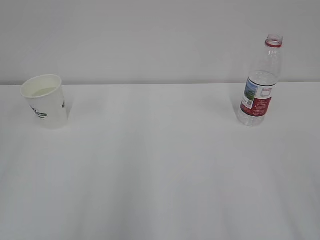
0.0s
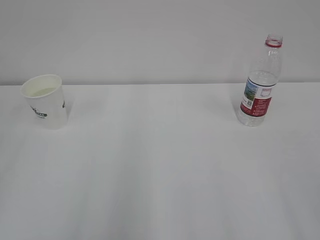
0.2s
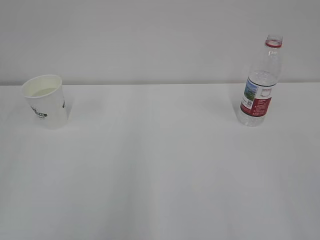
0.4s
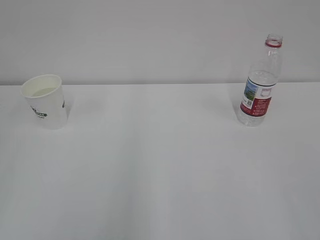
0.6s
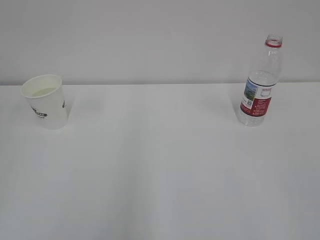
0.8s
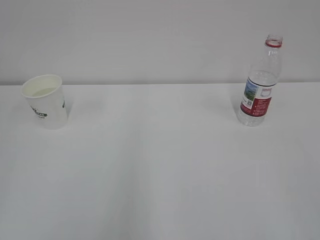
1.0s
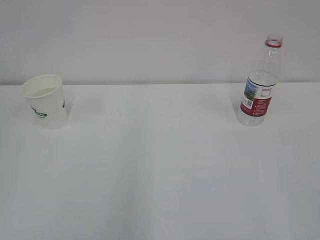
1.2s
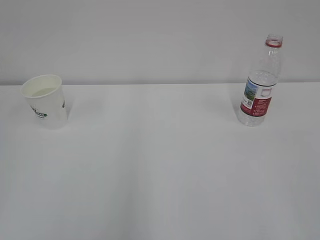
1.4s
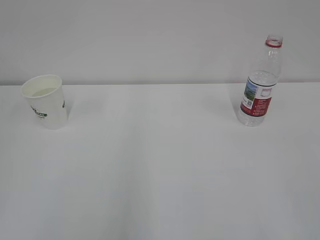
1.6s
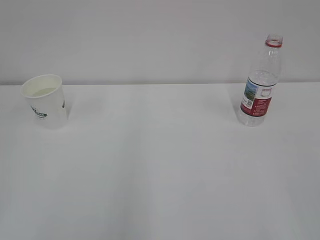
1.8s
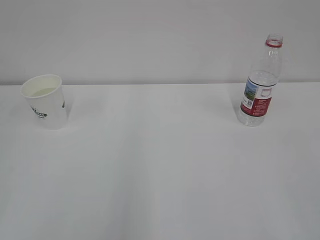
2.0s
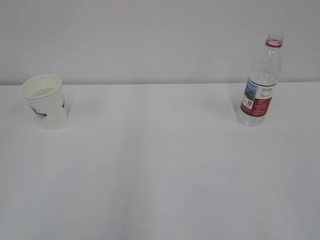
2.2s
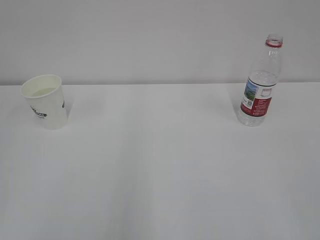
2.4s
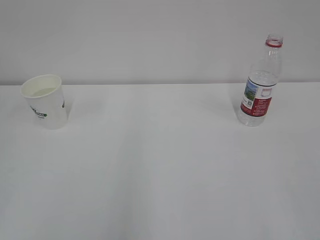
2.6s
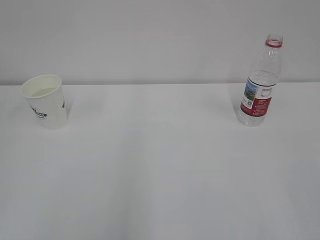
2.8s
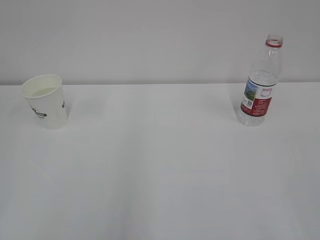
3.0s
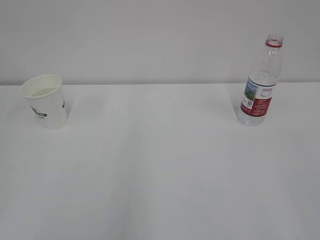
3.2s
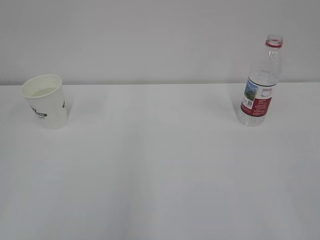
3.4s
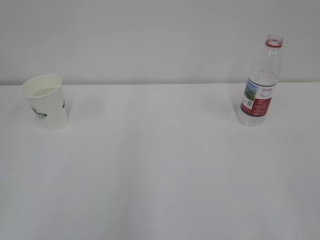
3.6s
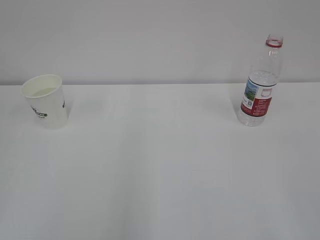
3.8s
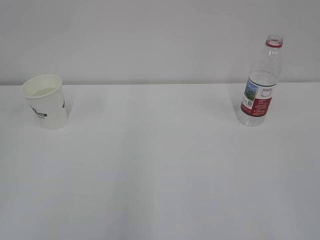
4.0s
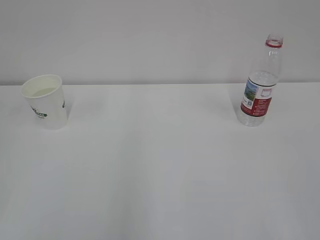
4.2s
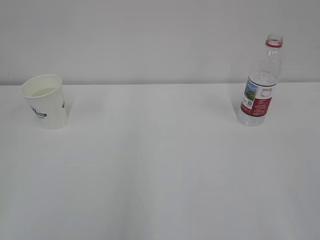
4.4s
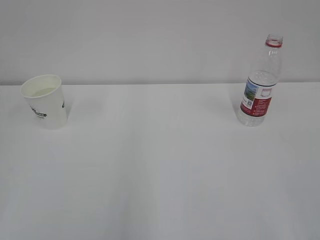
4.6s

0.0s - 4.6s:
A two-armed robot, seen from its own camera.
1.6s - 4.6s: Both grippers stay put.

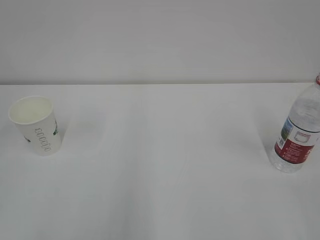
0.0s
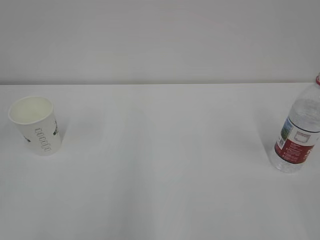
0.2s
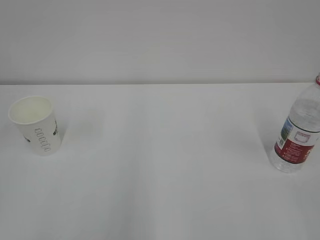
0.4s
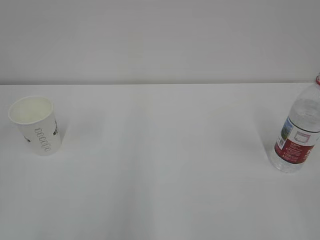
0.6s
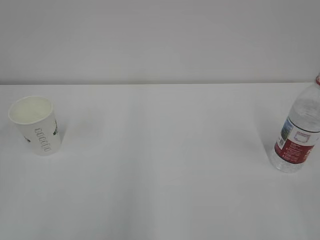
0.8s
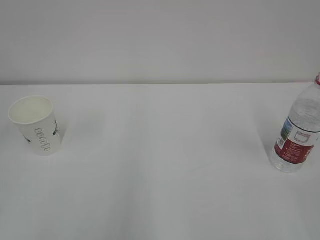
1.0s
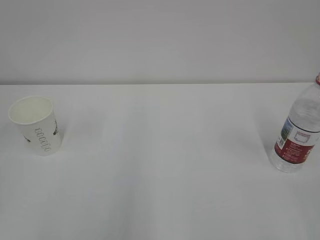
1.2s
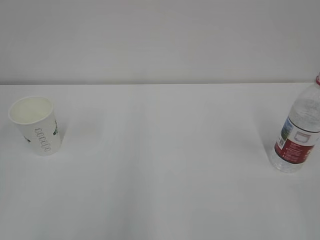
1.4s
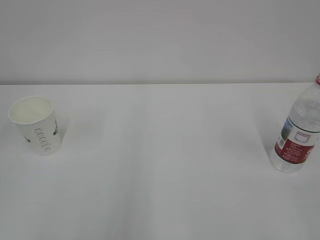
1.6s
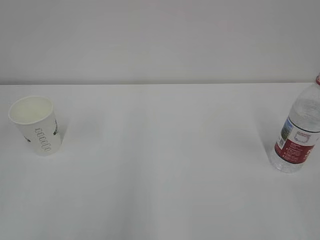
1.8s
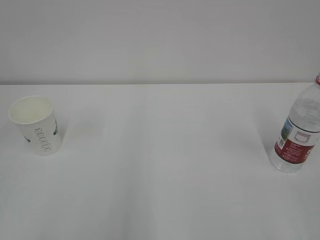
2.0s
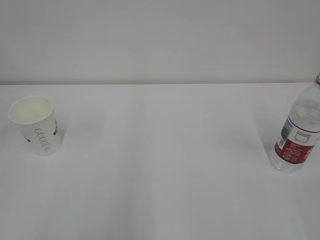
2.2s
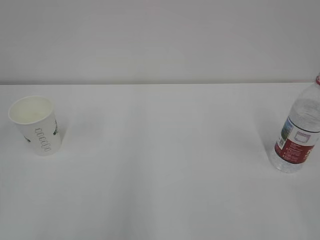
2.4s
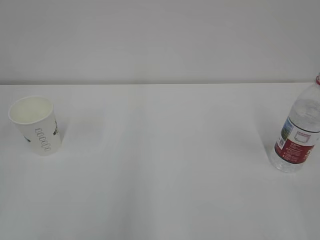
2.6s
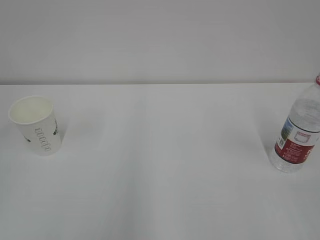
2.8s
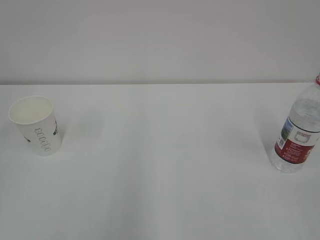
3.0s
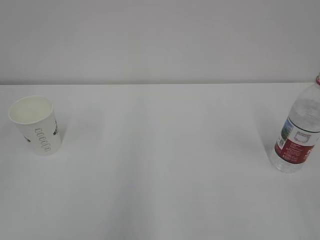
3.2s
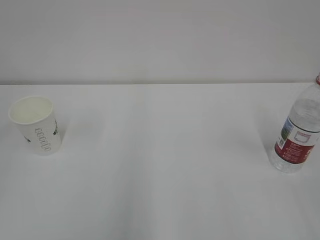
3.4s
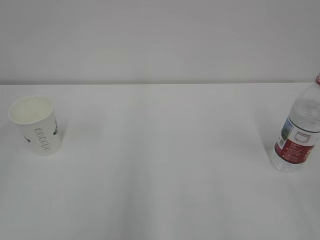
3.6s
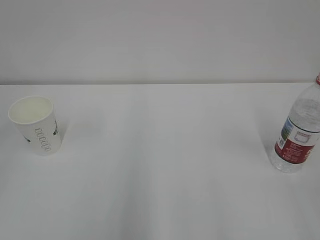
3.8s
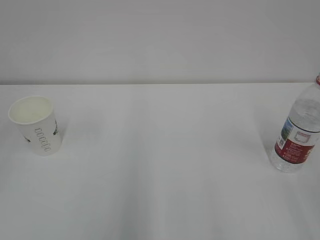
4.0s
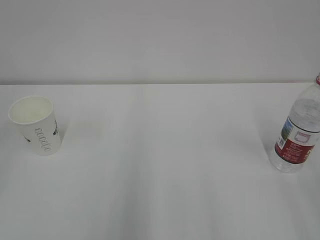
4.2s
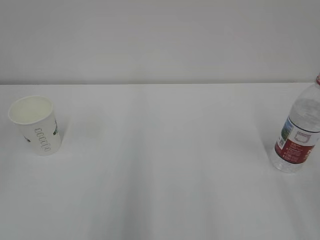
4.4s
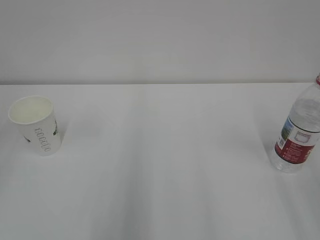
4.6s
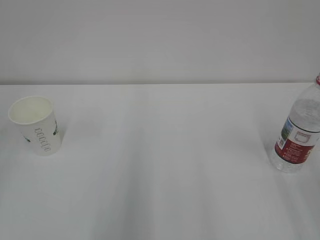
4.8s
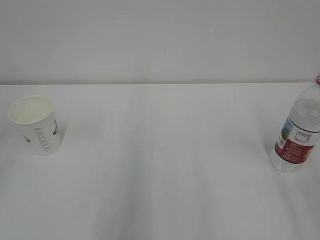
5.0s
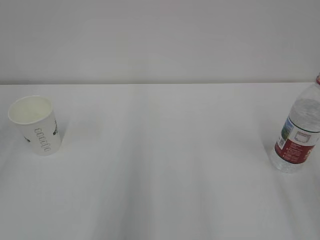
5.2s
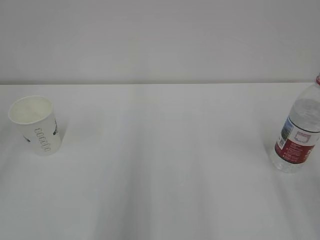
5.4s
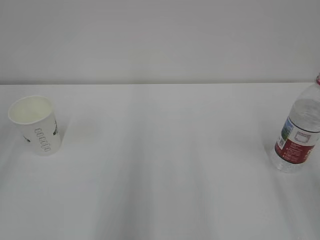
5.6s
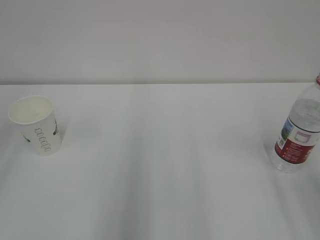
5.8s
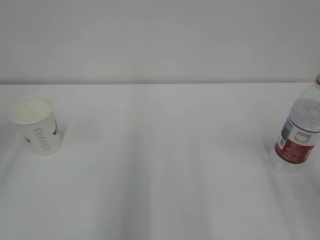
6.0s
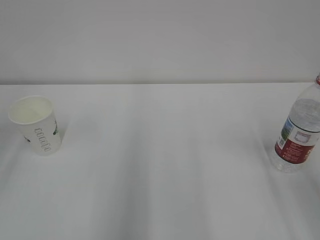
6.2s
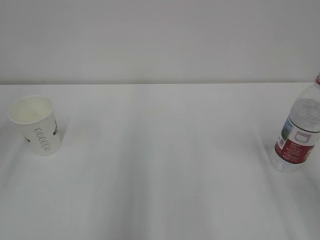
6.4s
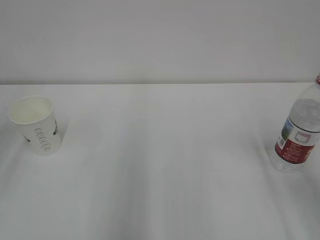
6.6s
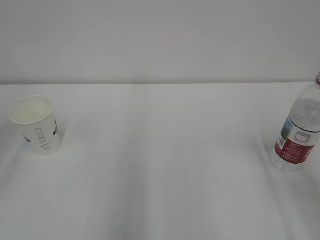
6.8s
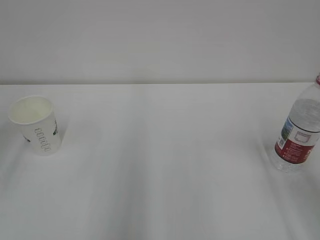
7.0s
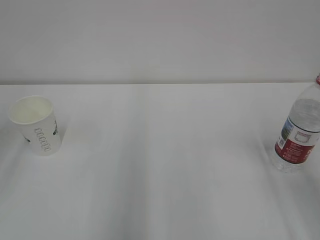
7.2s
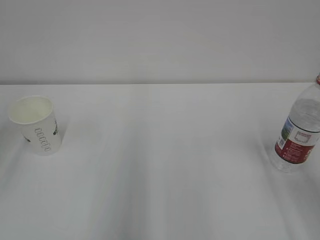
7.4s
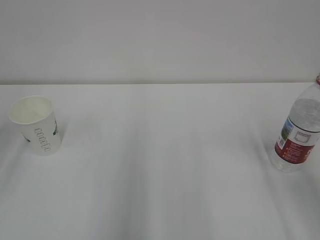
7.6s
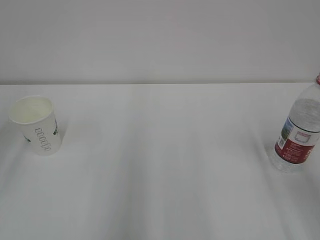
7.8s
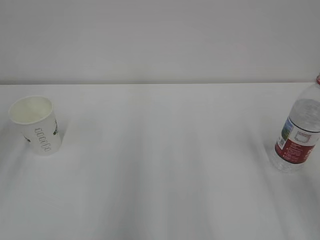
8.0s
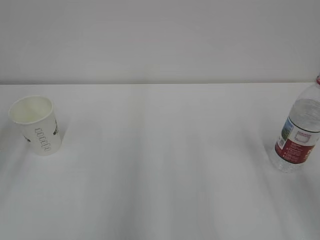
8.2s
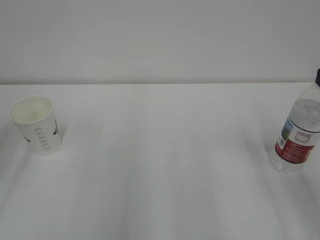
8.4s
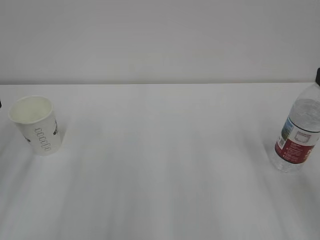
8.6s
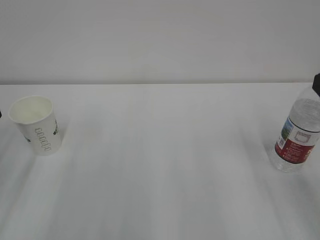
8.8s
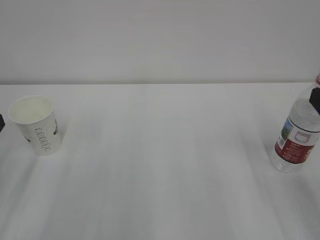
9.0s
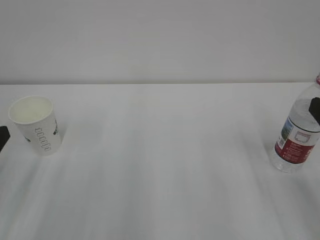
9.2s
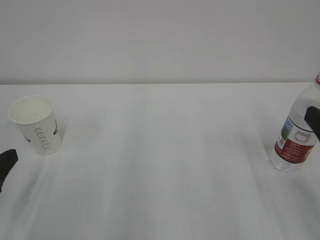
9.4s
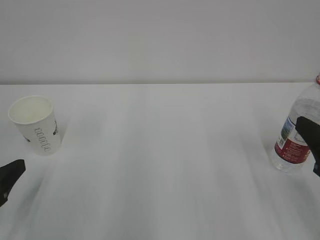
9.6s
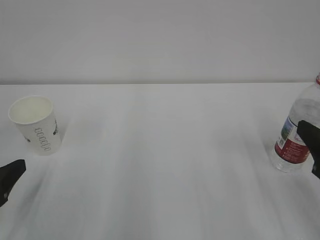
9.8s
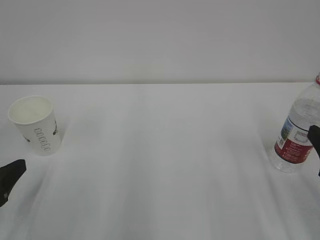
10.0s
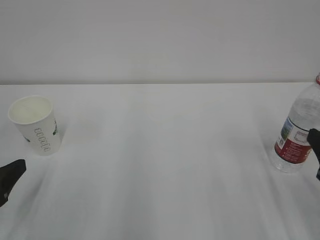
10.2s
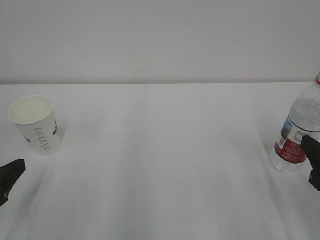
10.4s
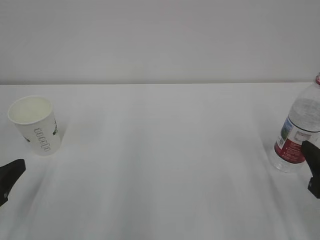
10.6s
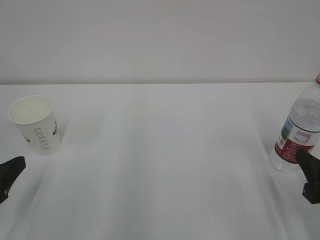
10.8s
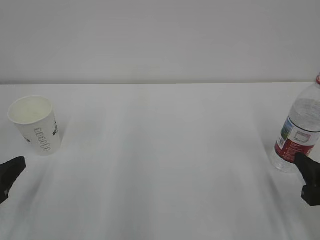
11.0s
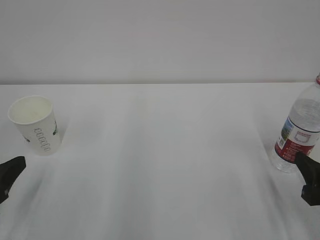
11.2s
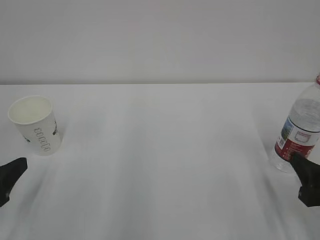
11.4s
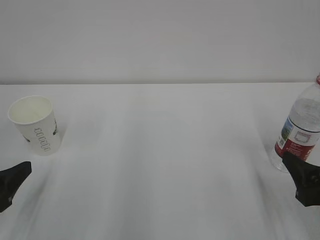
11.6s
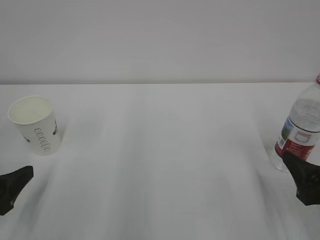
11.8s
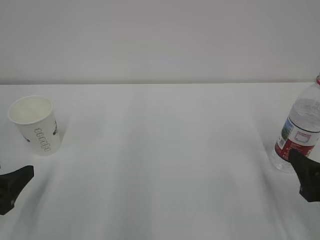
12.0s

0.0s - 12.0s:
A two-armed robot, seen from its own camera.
9.0s - 10.4s: The two grippers go about 5 cm downward.
10.4s - 12.0s: The right gripper opens.

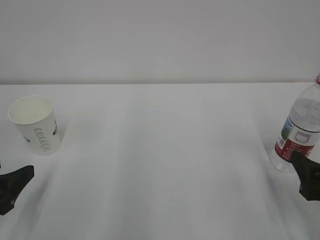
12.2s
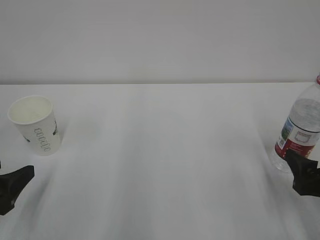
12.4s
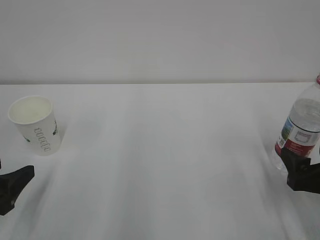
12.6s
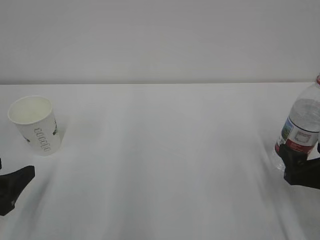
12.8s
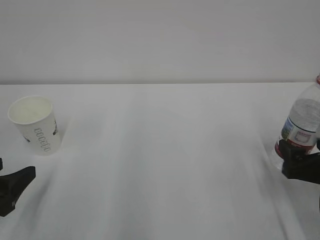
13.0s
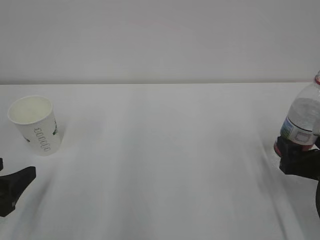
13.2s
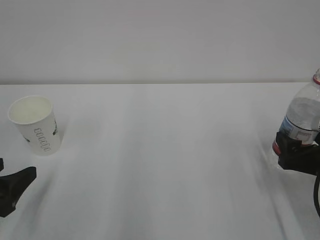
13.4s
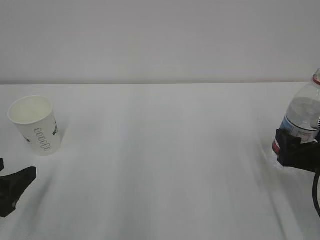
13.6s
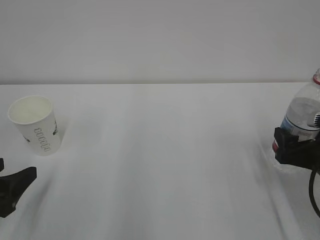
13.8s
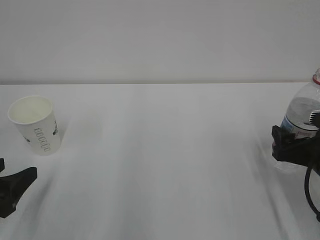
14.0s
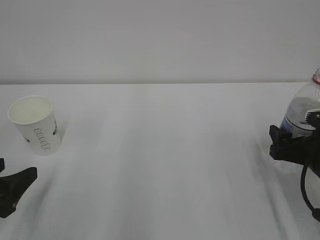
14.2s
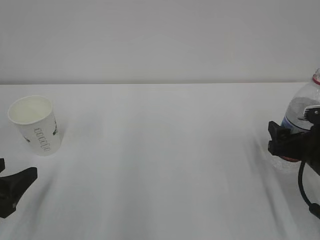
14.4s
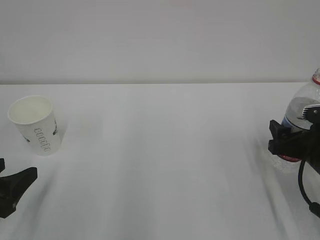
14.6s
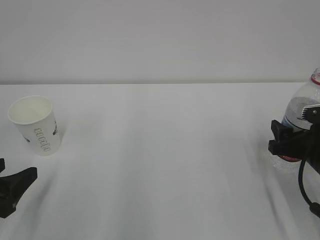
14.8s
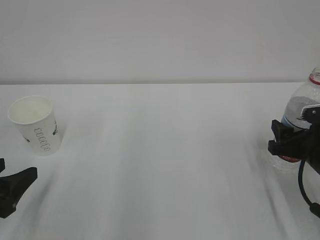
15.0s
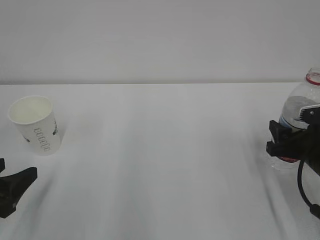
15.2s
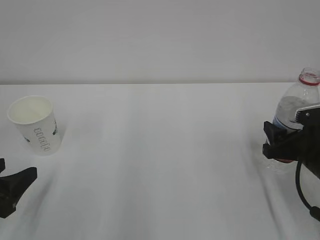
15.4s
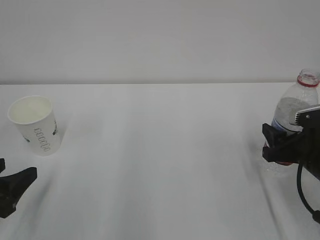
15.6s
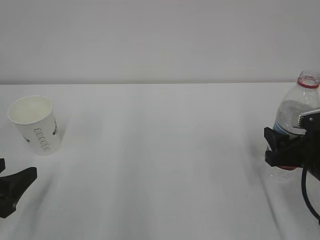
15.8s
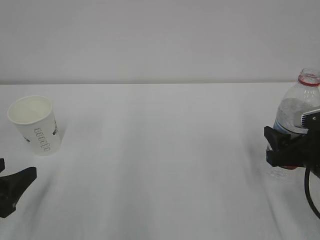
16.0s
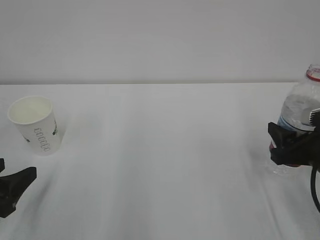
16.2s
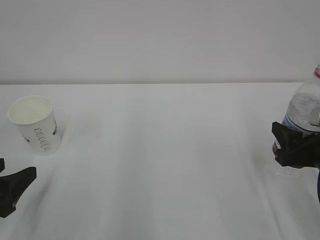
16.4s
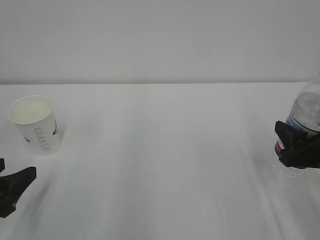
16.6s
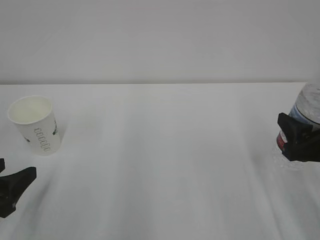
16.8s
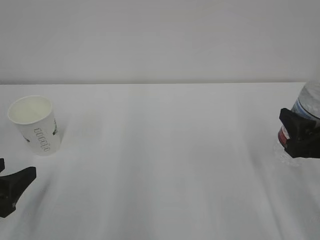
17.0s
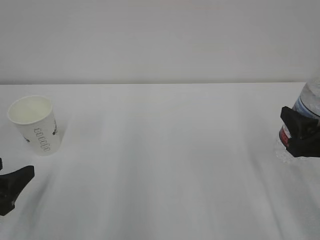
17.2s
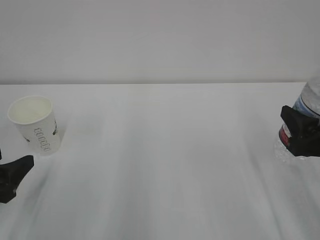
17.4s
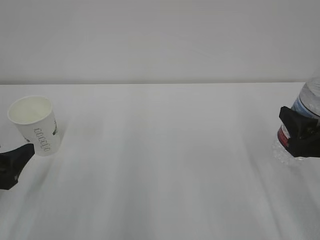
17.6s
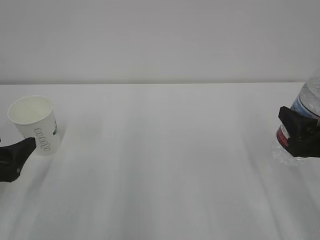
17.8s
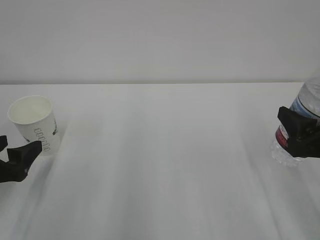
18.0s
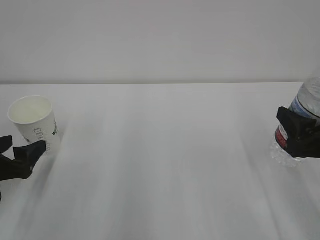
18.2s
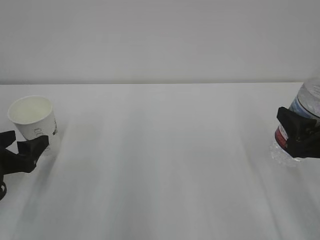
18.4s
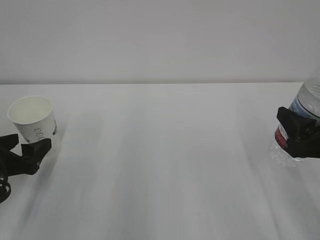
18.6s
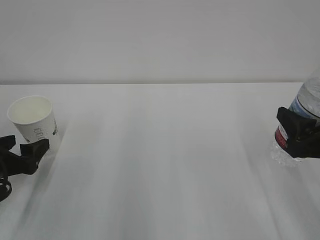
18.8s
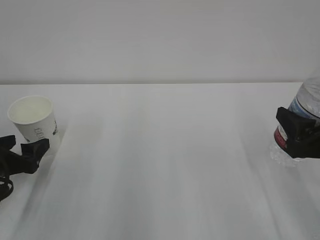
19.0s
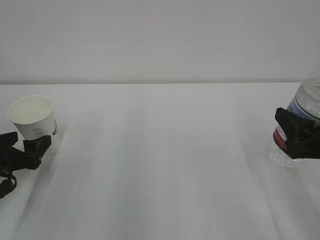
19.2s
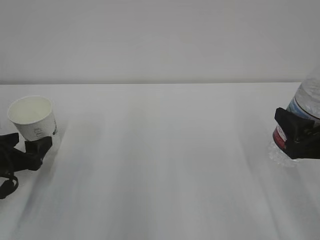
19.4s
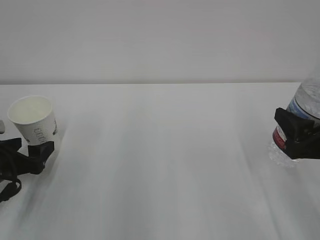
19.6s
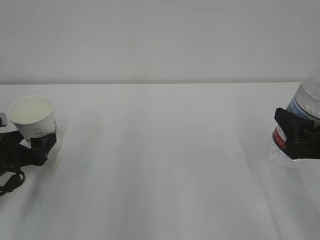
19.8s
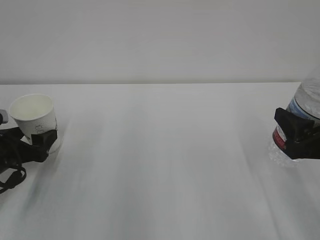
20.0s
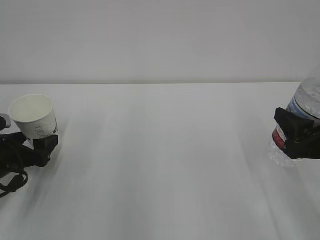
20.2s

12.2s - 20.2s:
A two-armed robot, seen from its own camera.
12.2s - 13.8s: The right gripper travels forward by about 5 cm.
13.8s - 15.4s: The right gripper closes its fingers.
15.4s - 17.0s: The right gripper shifts approximately 5 cm upward.
17.0s - 18.6s: The left gripper shifts some 10 cm forward, and opens.
18.6s - 20.2s: The grippers move only a little.
